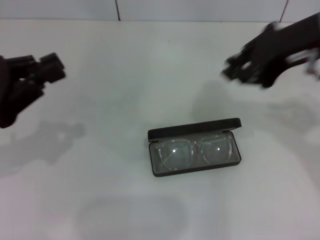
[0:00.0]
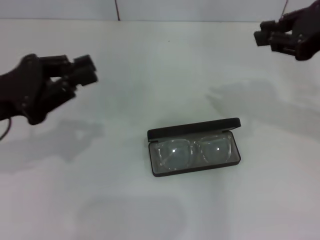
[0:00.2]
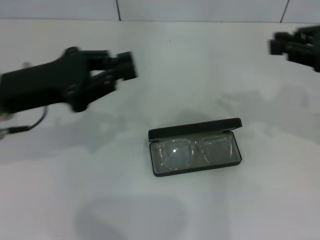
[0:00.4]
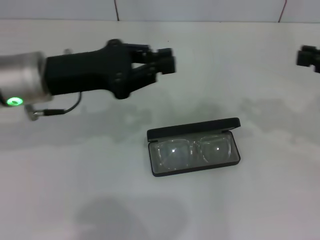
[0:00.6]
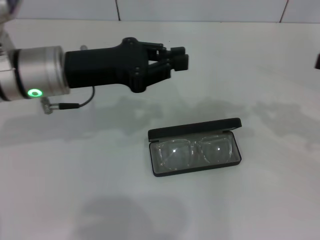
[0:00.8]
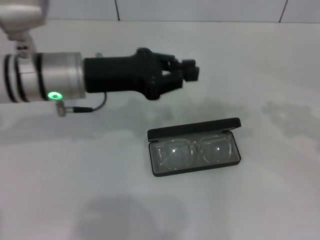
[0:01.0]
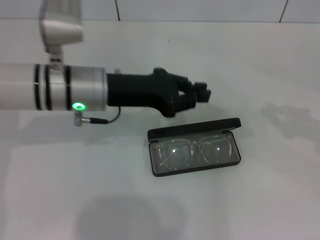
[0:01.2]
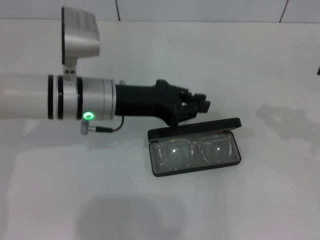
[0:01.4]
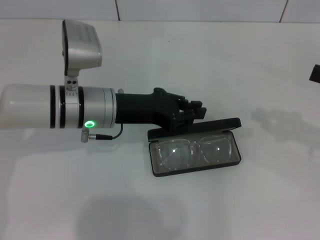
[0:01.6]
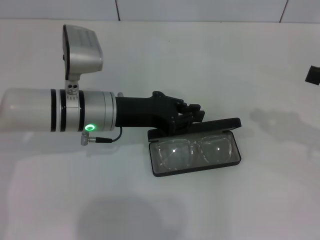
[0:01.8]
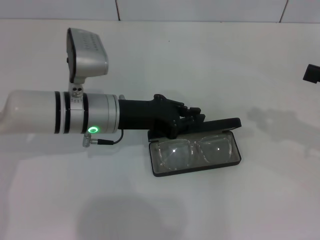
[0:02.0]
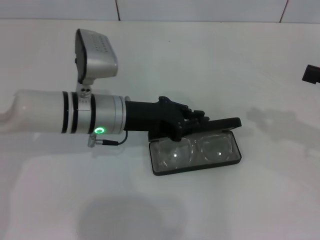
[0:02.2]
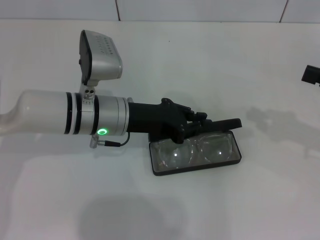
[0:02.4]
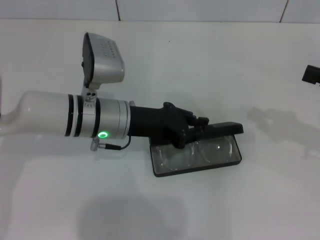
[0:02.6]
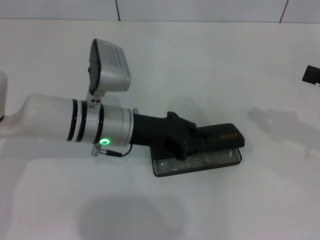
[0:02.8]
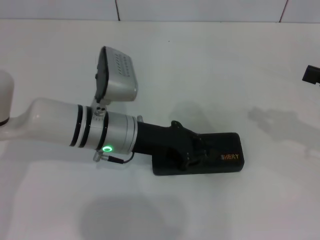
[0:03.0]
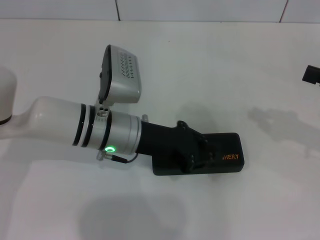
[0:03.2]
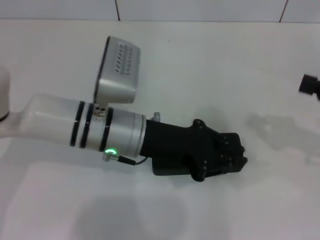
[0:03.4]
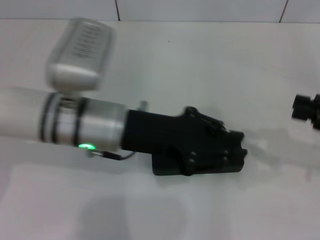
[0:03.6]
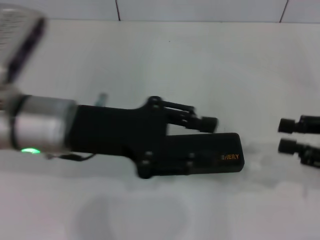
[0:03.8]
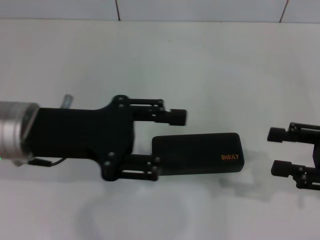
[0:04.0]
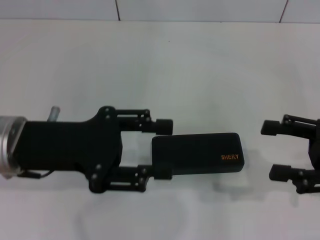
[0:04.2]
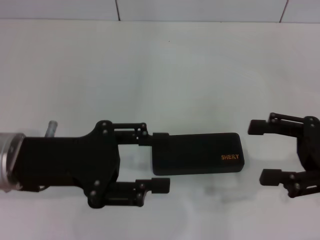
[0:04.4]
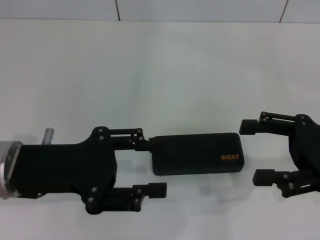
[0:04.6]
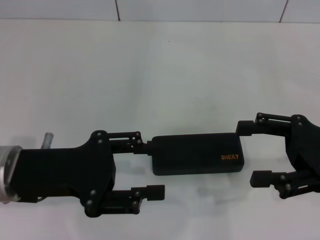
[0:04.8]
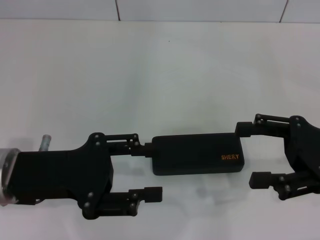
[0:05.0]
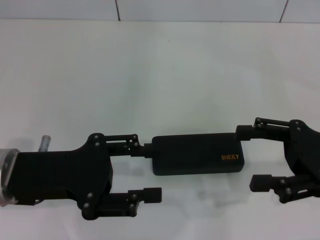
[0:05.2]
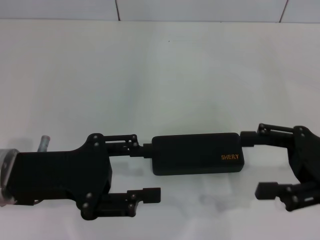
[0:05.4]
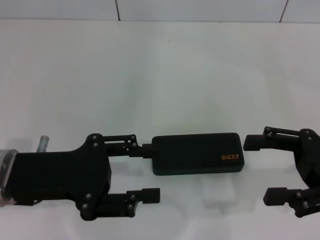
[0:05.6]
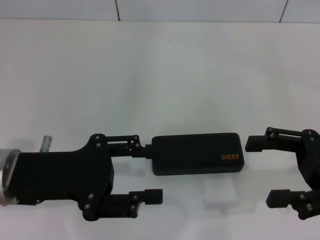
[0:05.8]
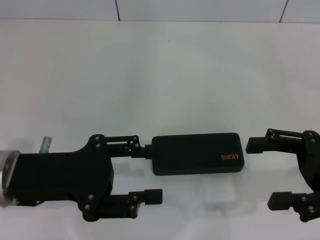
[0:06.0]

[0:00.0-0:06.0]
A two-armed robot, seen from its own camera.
Step, 0:00.0 to 0:02.8: Close the glasses case with your left hand.
0:00.0 to 0:01.6: The left gripper travels to the right and forward by approximately 20 cm, while the right gripper is displaced to the right and downward by approximately 20 cm.
0:01.6 to 0:03.0: The grippers stay close to where they were, moving slightly.
0:03.0 to 0:04.4: The left gripper goes roughly 15 cm to the left, backward and upward, and opens up. The right gripper is displaced to the left by approximately 5 cm, and opens its fingers.
0:04.4 to 0:06.0: The grippers move only a little.

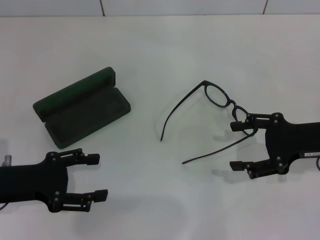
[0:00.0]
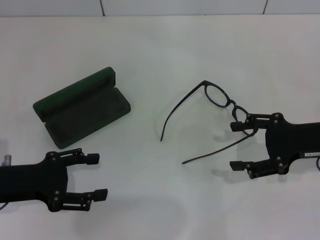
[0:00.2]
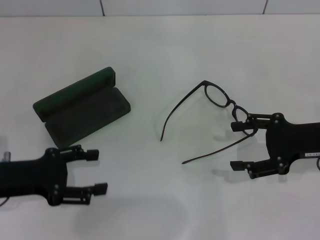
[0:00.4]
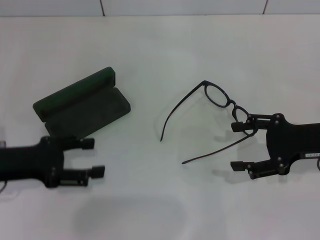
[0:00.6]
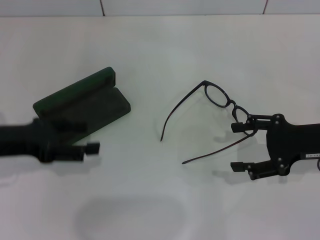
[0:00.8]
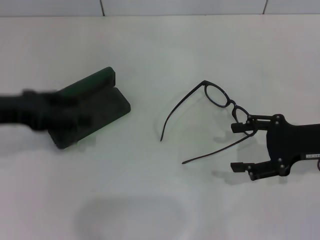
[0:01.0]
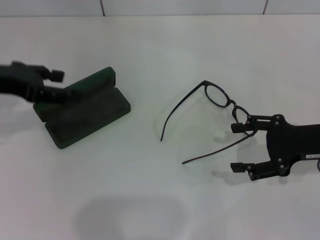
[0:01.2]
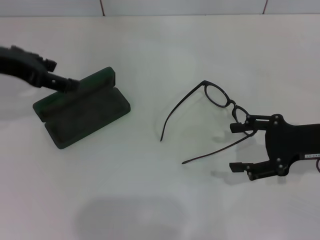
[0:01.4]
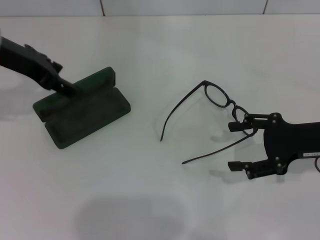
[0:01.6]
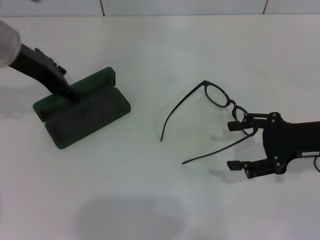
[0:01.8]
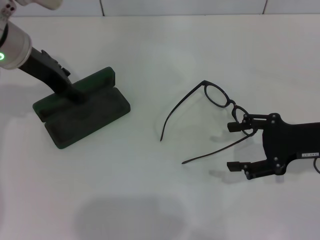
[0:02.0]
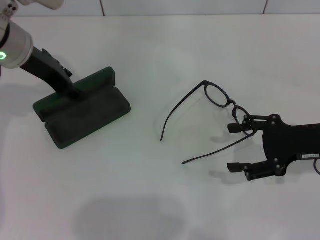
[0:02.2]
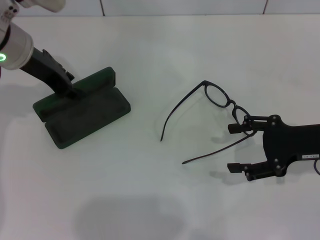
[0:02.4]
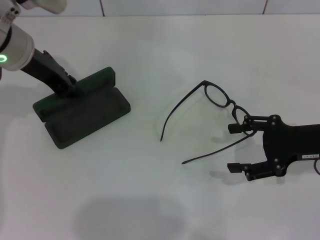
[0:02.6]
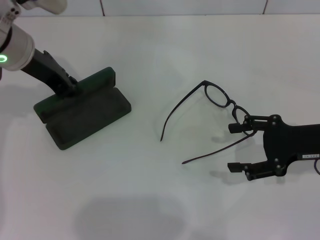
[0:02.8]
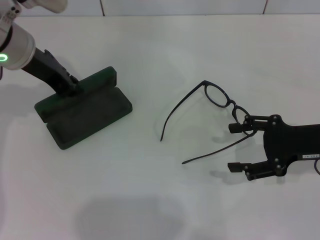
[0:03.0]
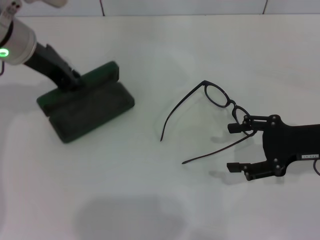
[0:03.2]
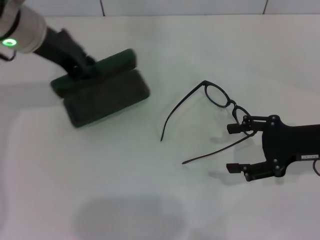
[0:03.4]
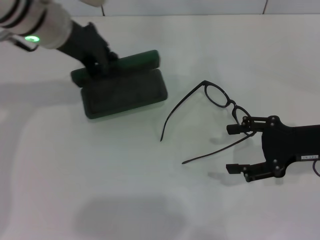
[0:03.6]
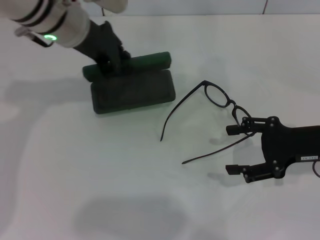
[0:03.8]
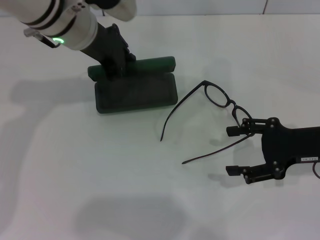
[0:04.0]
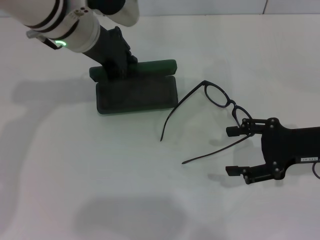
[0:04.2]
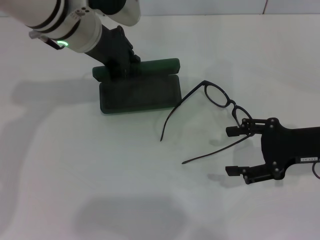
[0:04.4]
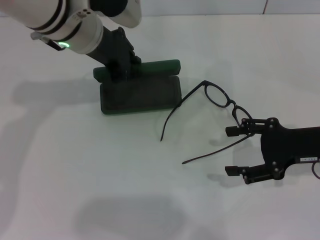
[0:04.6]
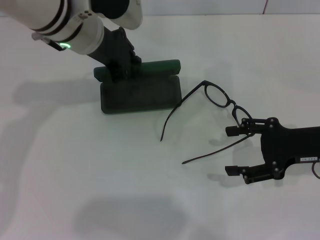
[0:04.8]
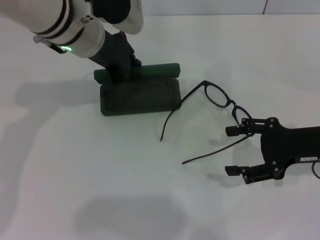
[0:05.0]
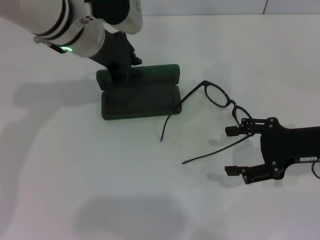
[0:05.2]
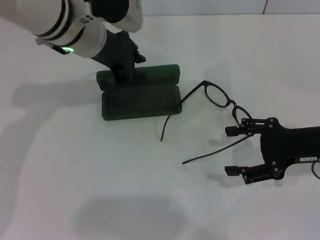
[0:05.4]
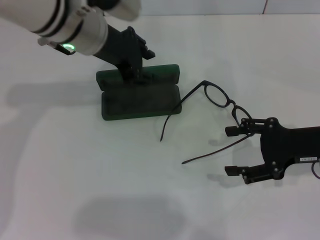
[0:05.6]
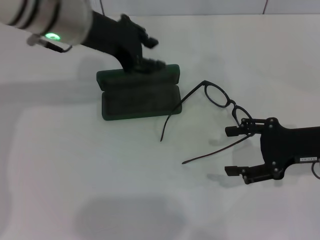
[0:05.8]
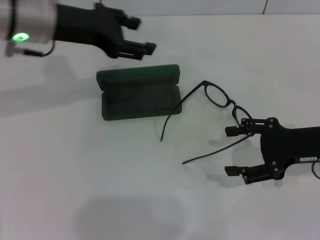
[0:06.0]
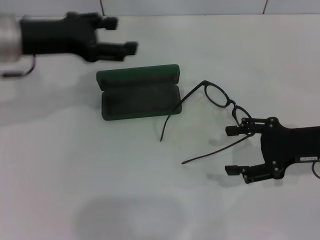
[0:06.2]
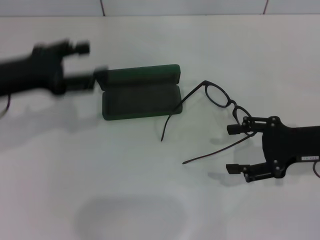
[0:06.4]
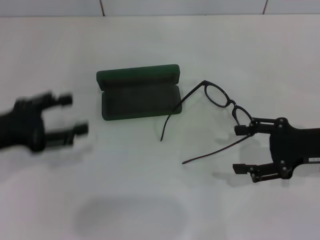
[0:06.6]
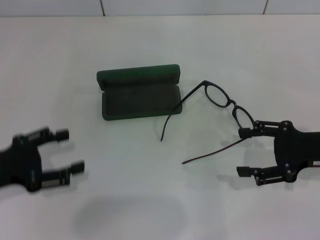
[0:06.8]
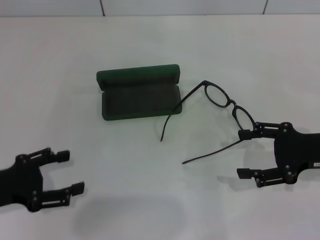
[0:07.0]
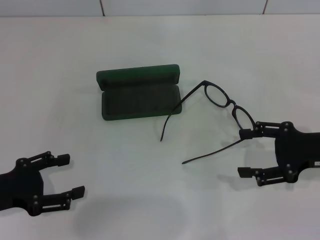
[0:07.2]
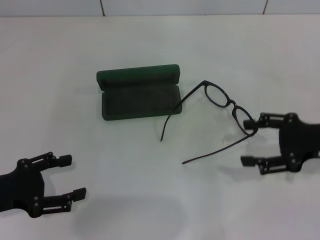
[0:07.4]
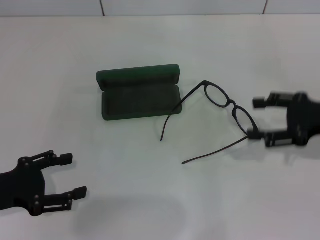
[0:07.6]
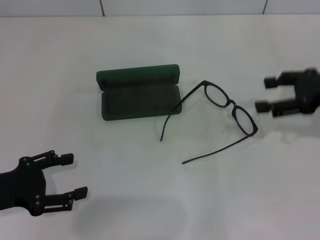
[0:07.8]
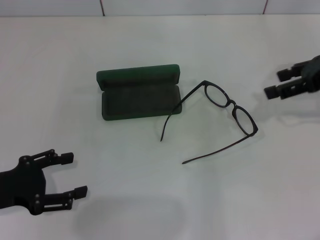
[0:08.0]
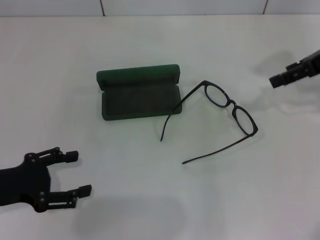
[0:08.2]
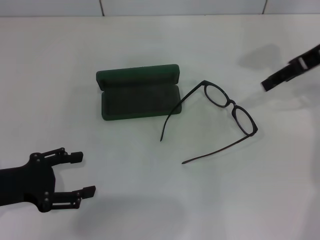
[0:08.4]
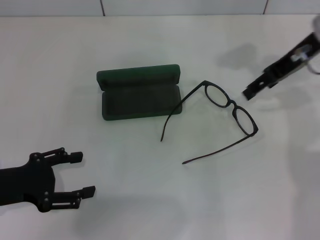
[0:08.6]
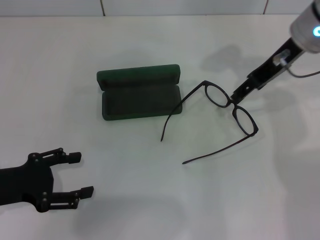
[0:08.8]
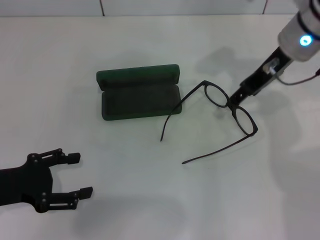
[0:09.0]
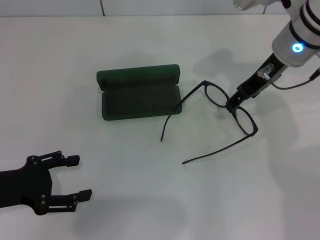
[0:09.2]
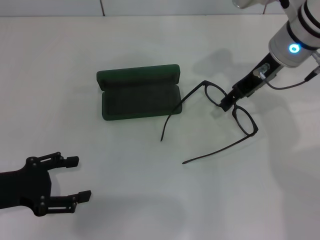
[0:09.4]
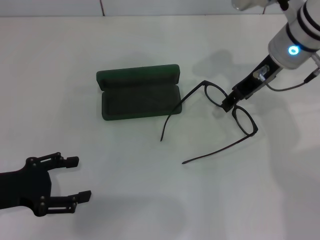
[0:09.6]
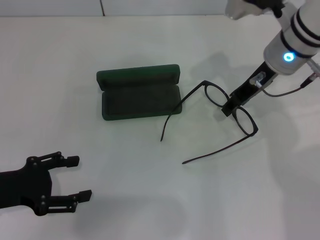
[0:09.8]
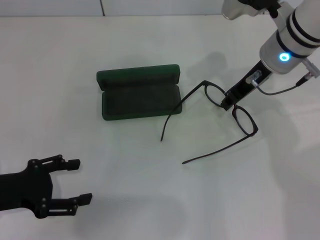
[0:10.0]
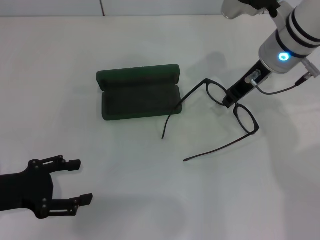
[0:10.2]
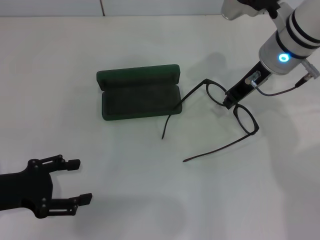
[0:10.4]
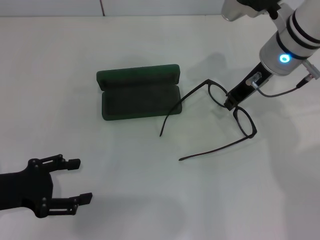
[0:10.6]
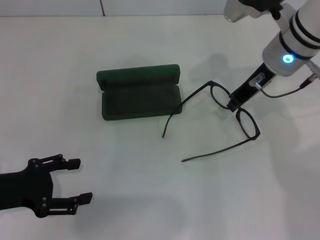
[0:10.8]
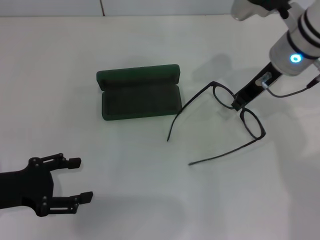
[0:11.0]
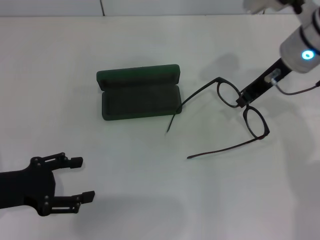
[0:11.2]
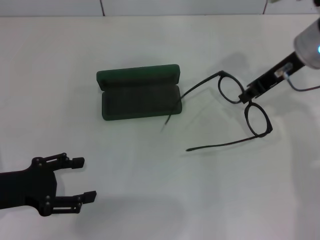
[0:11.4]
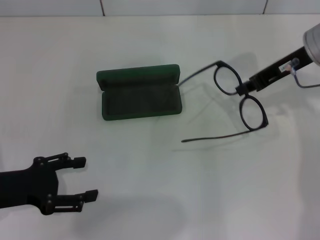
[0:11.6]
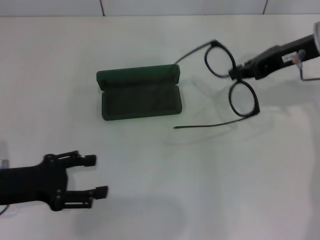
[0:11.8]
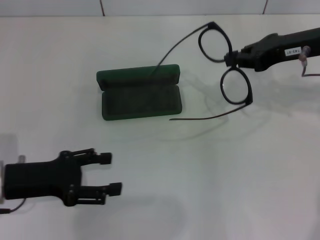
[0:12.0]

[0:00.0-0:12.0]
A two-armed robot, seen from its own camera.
Step, 0:00.0 to 0:02.6: Grab the glasses case with your left hand.
Step, 0:03.0 to 0:05.4: Place the glasses case in the center of the table with your left hand.
Step, 0:05.8 to 0:10.6: Grab the eyeglass frame with your right hand.
0:00.0 to 0:01.6: The left gripper heads upward and forward, covering approximately 20 cm.
0:01.6 to 0:03.0: The left gripper closes its fingers.
0:03.0 to 0:04.4: The left gripper travels to the right by roughly 10 cm.
0:04.4 to 0:06.0: The left gripper heads to the left, covering about 5 cm, and opens up.
0:06.0 to 0:07.6: The left gripper travels backward, downward and to the left by about 25 cm.
0:07.6 to 0:09.0: The right gripper goes about 20 cm to the left, forward and upward.
0:09.0 to 0:10.4: The right gripper closes up.
0:10.4 to 0:12.0: The right gripper shifts about 10 cm to the right.

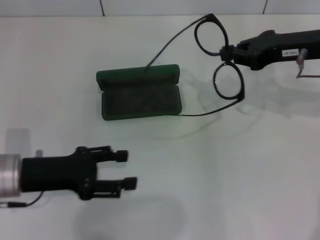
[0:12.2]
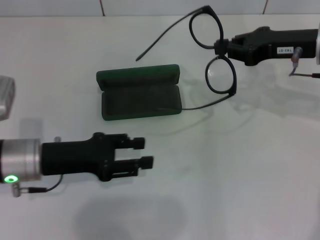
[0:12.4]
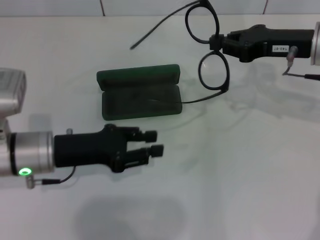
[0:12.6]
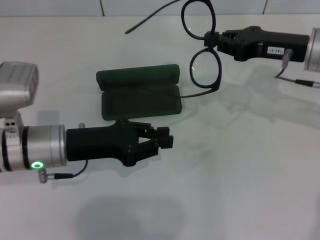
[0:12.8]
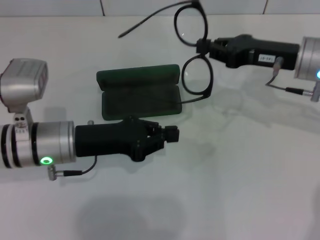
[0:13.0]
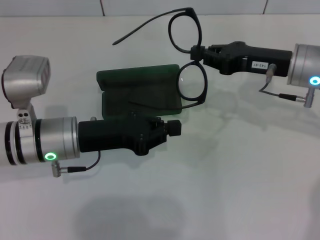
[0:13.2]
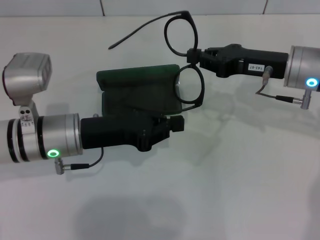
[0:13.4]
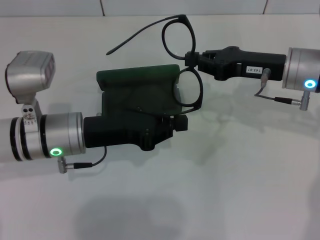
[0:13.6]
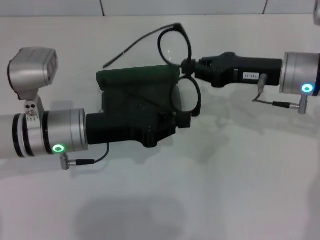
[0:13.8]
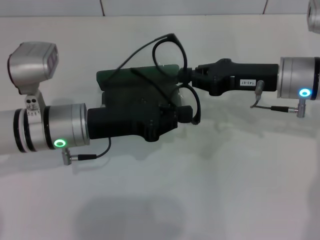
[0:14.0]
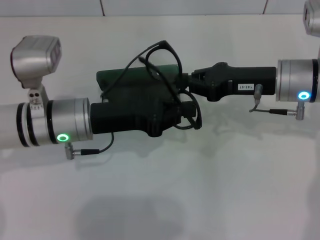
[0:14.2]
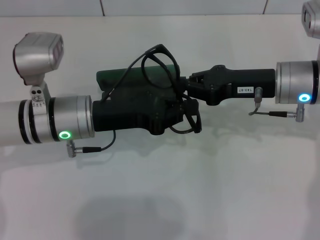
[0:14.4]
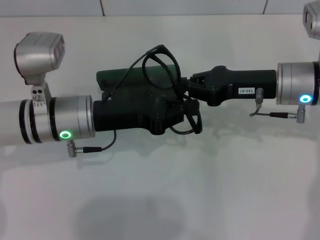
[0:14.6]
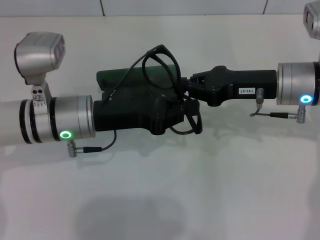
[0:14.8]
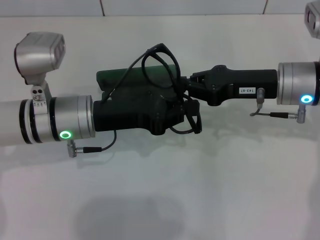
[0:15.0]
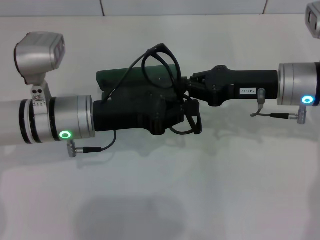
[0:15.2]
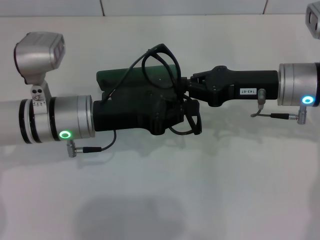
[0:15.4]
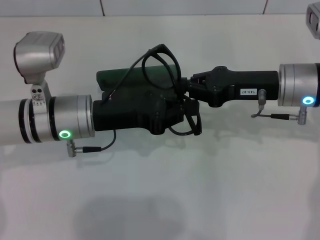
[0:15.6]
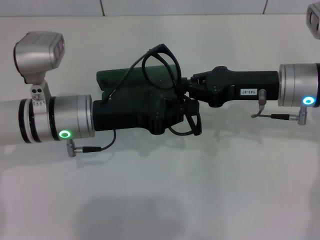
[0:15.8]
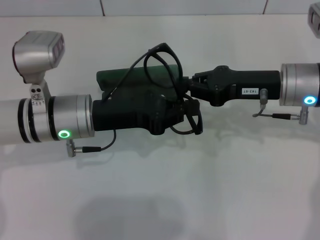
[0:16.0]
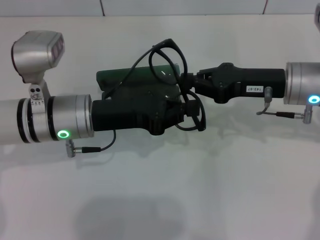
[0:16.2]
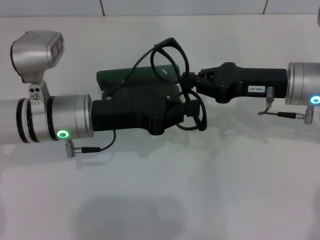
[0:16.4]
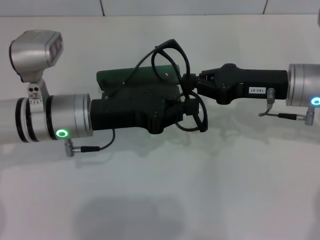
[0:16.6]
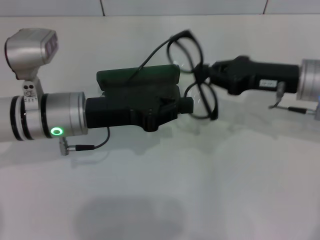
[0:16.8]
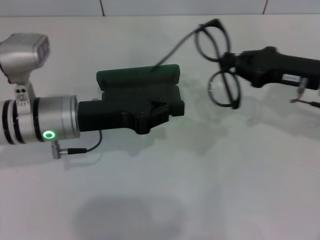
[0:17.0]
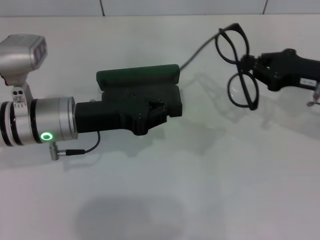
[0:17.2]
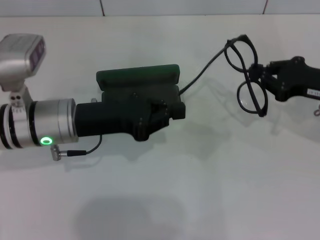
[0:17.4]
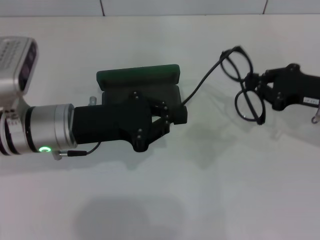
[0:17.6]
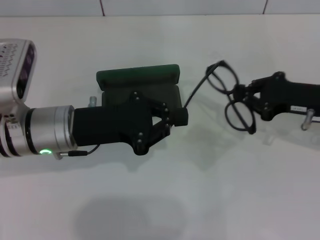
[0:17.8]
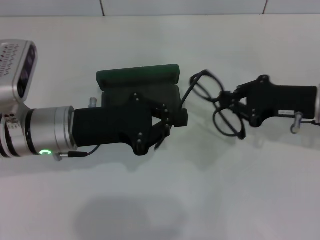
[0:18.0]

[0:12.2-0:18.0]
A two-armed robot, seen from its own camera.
0:12.2 to 0:13.6: The left gripper moves to the right, some 10 cm, and closes. Meanwhile the right gripper shifts by some 5 cm.
0:15.0 to 0:16.6: Both grippers stay about where they are.
